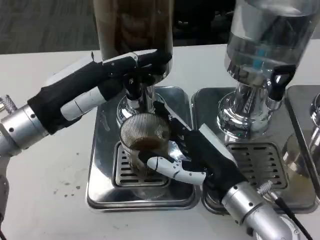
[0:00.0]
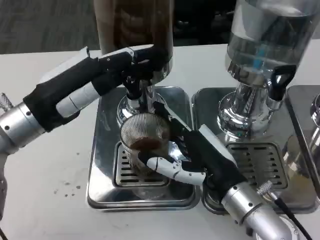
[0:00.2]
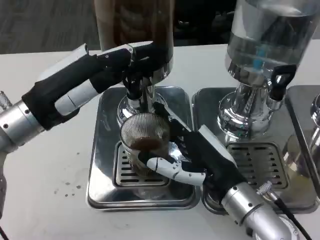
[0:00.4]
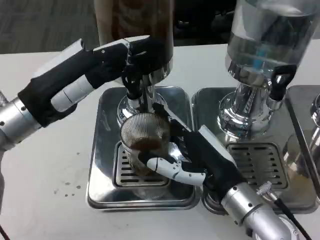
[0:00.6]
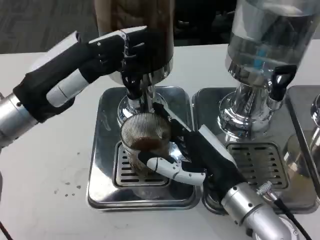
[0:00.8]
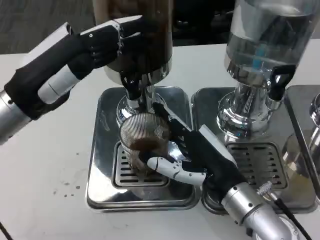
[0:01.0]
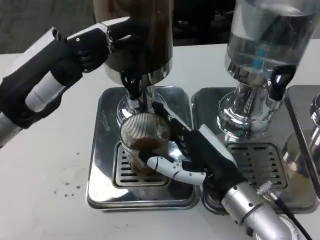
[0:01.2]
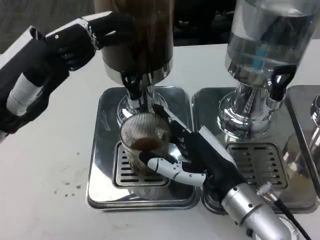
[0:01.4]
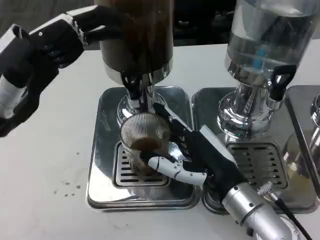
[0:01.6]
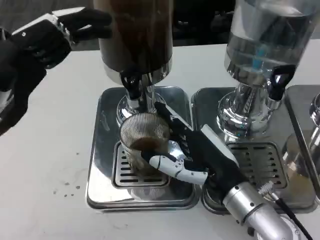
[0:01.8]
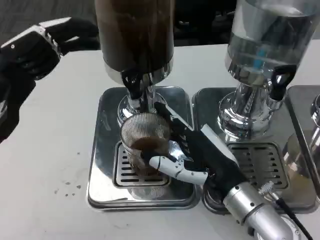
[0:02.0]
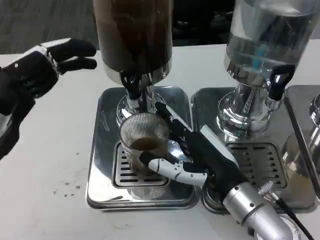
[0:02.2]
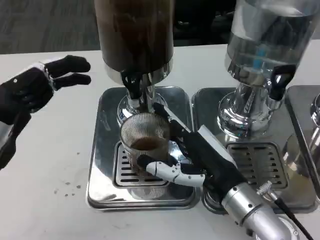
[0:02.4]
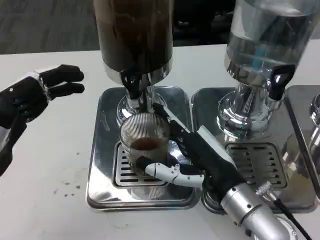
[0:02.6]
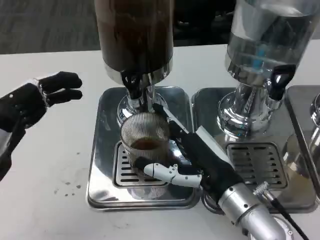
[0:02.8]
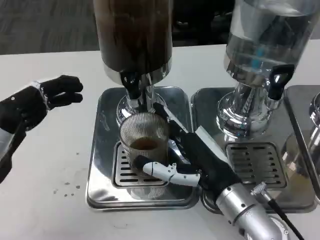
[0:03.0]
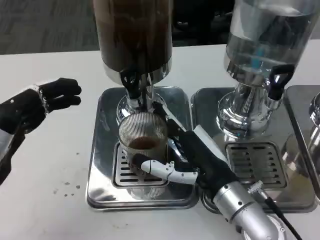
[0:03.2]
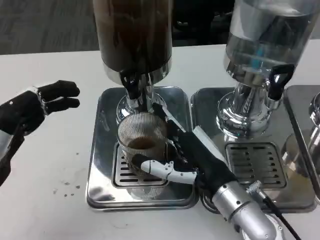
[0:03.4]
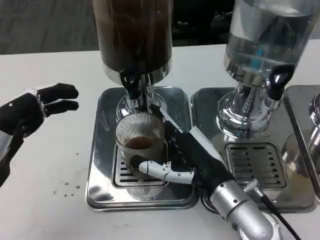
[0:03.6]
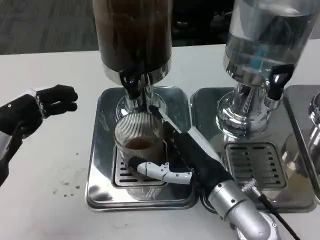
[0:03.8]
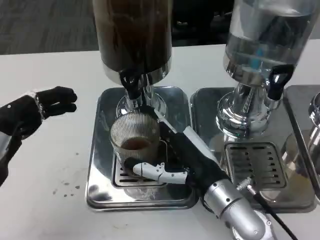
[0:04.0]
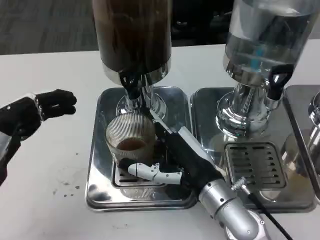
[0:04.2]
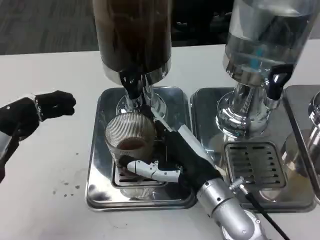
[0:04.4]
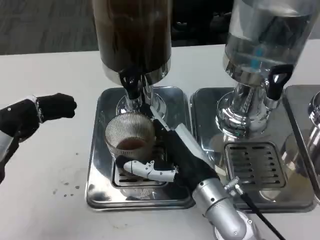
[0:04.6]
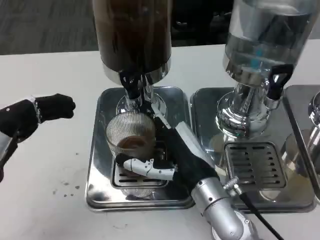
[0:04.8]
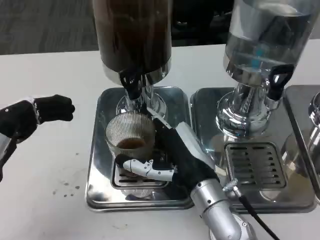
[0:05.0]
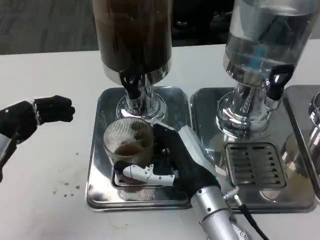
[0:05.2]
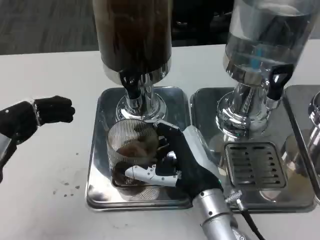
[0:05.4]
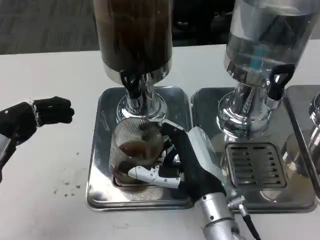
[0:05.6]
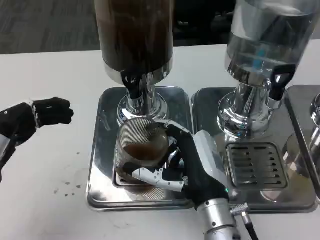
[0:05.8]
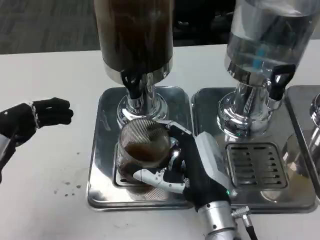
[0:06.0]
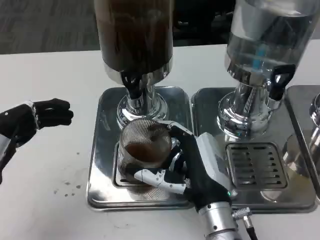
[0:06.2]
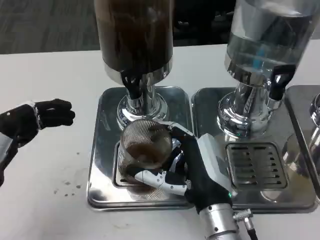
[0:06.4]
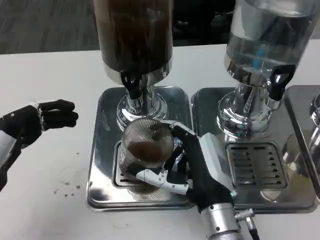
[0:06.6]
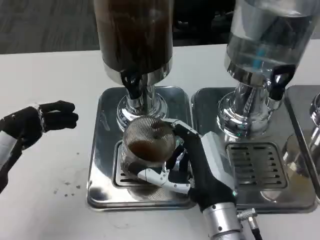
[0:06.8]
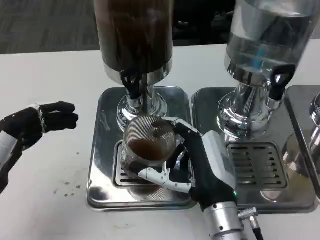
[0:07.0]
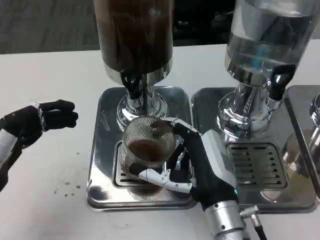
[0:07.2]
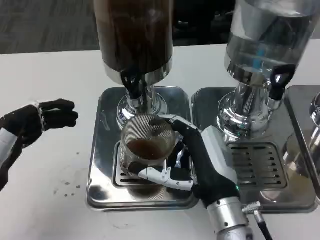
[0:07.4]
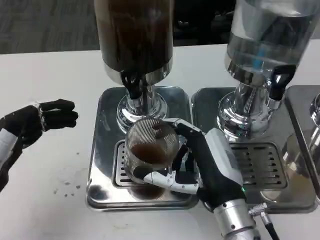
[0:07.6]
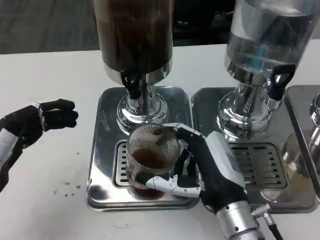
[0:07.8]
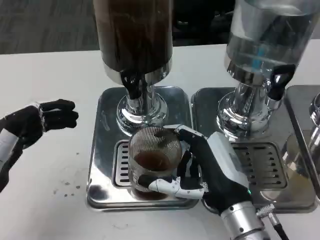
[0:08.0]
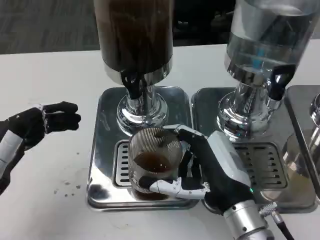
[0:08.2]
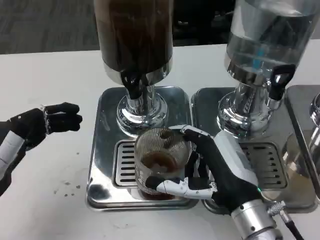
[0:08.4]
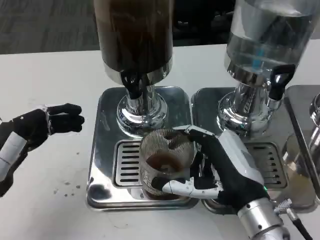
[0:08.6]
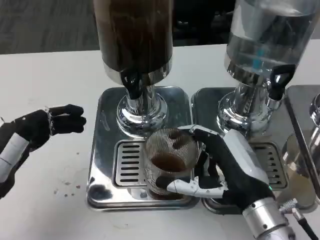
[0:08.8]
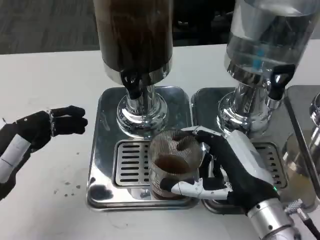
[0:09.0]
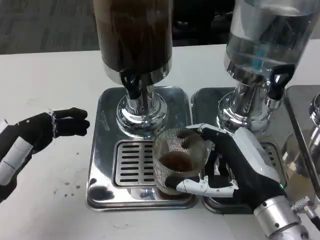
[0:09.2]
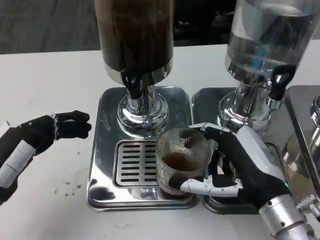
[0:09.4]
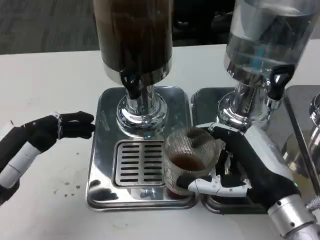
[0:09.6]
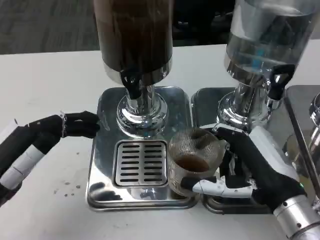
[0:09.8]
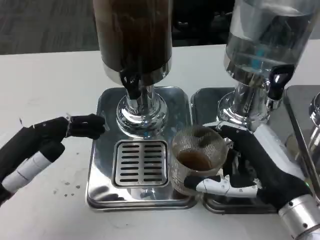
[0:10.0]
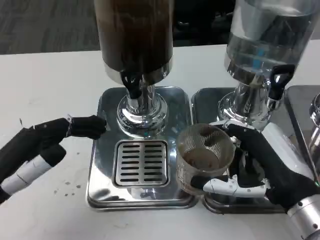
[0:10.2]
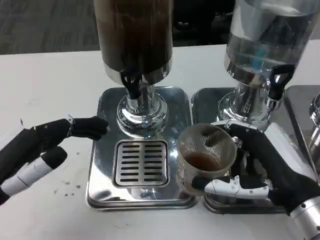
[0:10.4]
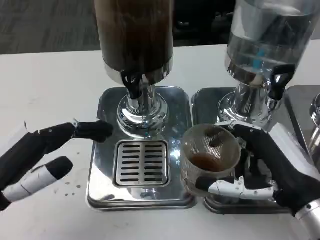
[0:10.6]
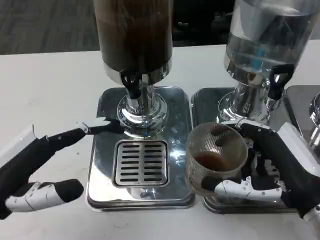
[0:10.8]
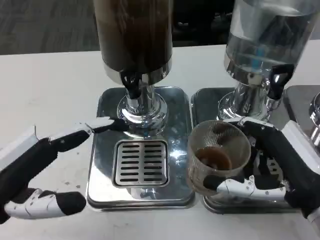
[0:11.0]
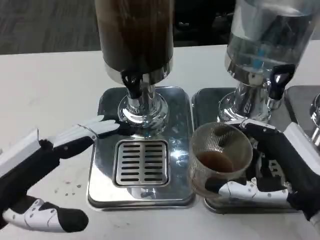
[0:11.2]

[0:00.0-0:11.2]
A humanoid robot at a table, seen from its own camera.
Task of the whole recording: Grasp the cup under the faucet to collect the drink, then remove the cup.
0.0 to 1.6 s: The left hand changes place by roughly 5 cm.
1.6 to 3.2 s: The left hand travels downward and backward by roughly 10 cm.
3.2 to 4.8 s: There are only small adjustments of the hands.
6.4 to 8.0 s: The hands make only small movements.
8.0 to 9.6 s: The right hand heads to the right, covering roughly 5 cm.
9.6 to 11.2 s: The left hand shifts about 5 cm upward, while the right hand changes place by some 5 cm.

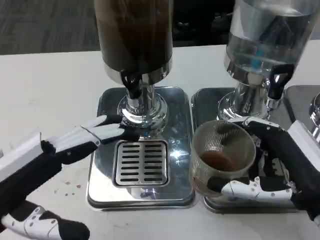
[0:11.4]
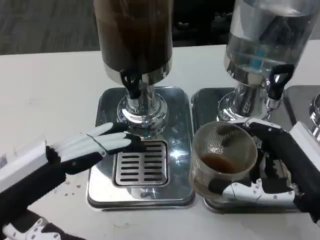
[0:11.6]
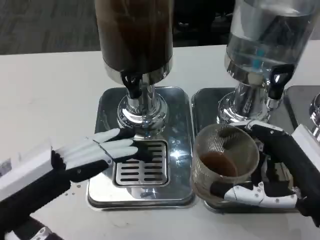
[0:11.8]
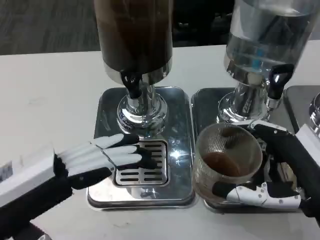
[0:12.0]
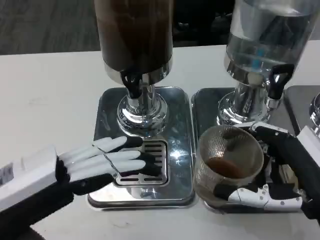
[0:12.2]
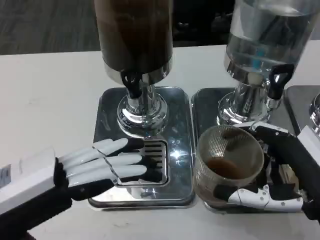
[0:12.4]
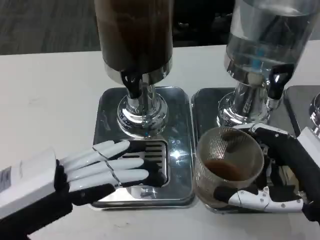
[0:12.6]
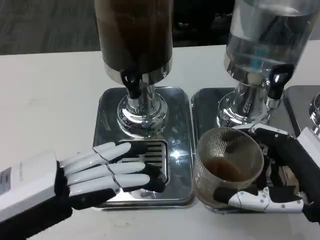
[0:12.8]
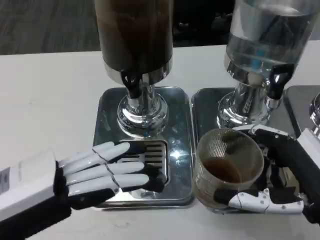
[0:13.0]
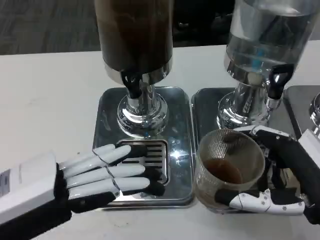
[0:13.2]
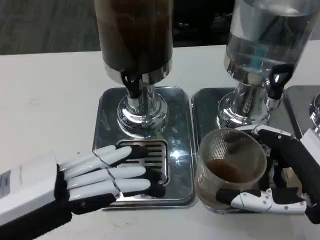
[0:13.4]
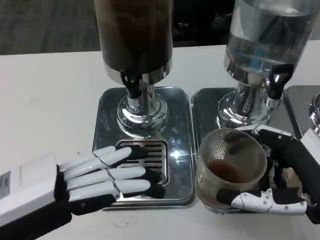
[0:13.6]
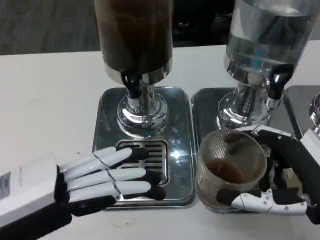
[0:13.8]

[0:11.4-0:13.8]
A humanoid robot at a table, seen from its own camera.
Task of the whole recording: Grasp the cup under the faucet to collect the drink, then remove the cup.
12.6 to 13.8 s: Neither hand changes place.

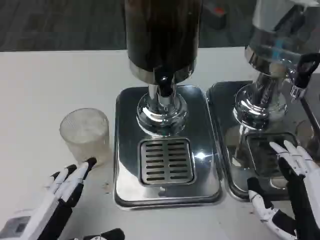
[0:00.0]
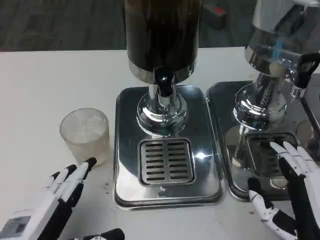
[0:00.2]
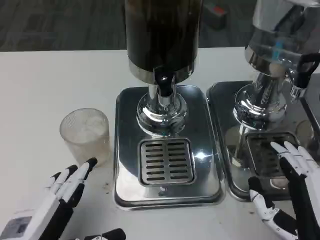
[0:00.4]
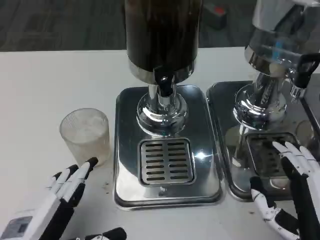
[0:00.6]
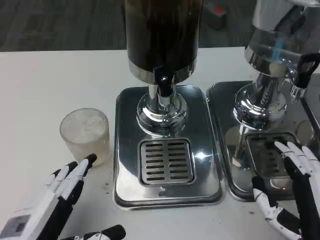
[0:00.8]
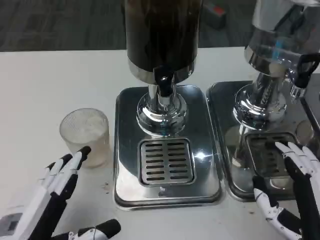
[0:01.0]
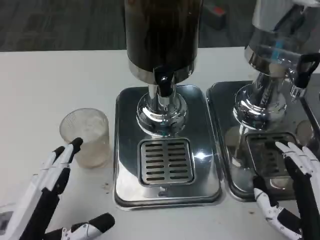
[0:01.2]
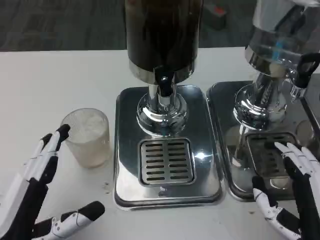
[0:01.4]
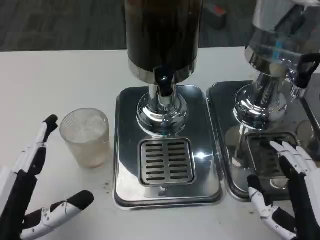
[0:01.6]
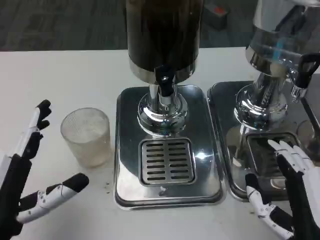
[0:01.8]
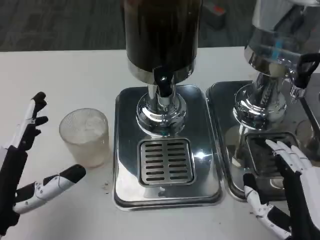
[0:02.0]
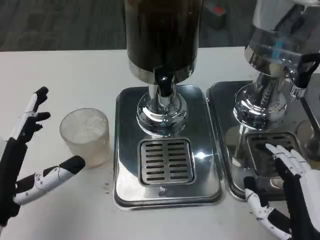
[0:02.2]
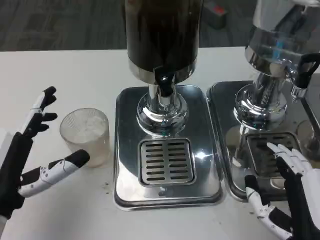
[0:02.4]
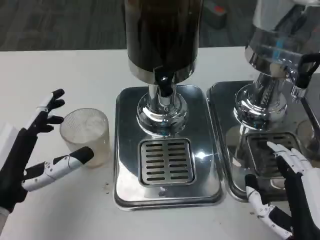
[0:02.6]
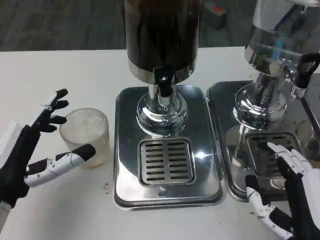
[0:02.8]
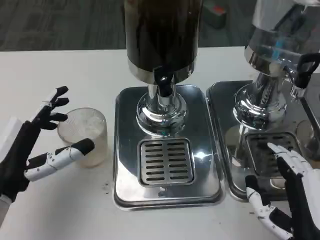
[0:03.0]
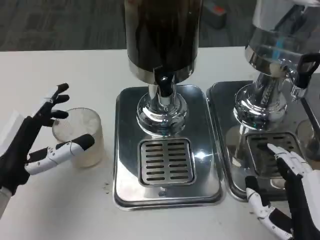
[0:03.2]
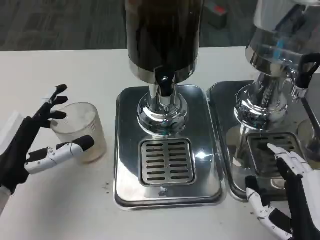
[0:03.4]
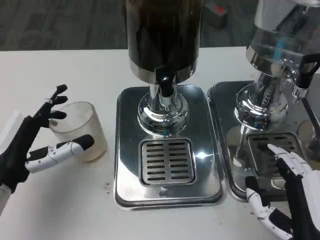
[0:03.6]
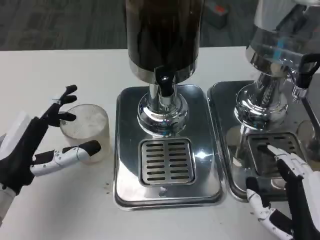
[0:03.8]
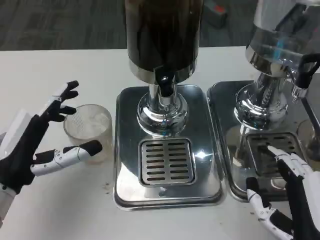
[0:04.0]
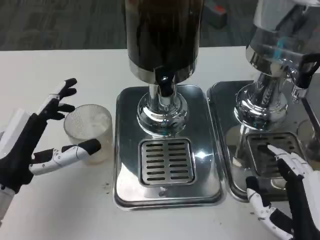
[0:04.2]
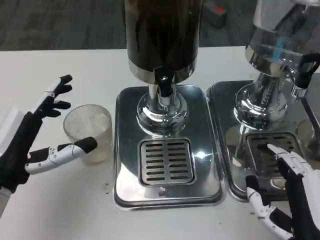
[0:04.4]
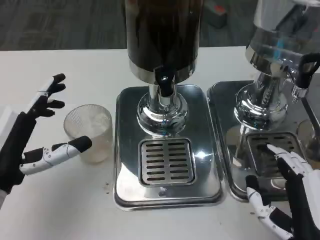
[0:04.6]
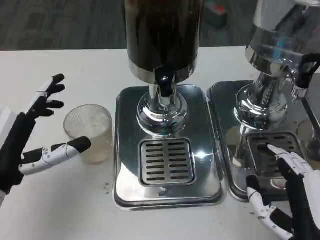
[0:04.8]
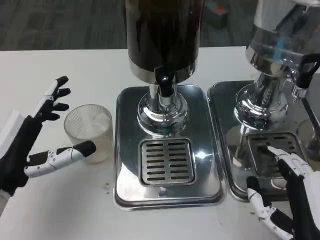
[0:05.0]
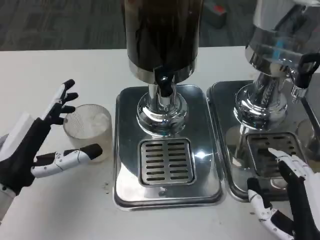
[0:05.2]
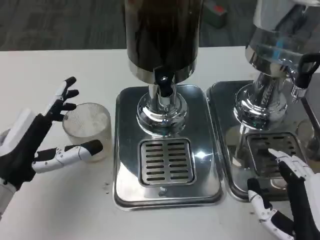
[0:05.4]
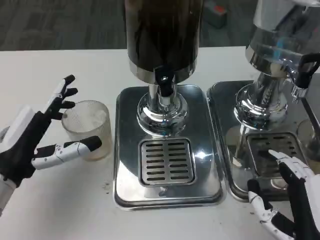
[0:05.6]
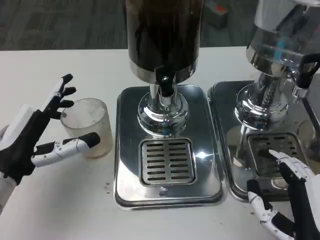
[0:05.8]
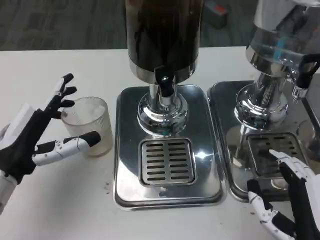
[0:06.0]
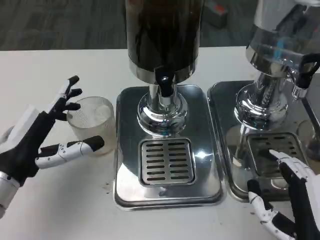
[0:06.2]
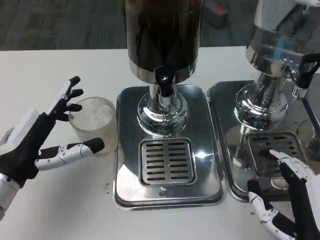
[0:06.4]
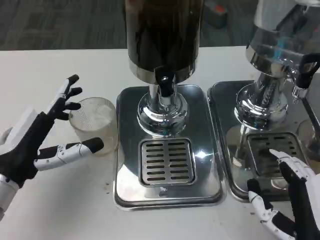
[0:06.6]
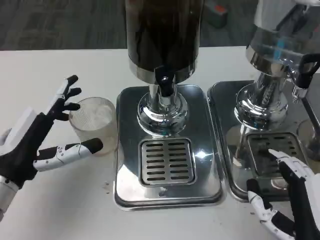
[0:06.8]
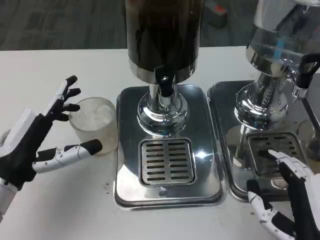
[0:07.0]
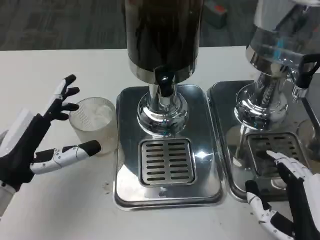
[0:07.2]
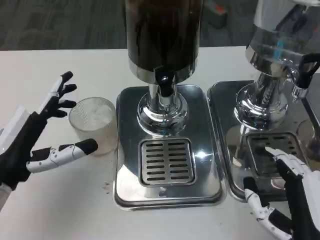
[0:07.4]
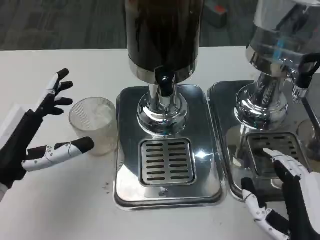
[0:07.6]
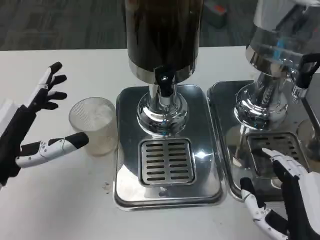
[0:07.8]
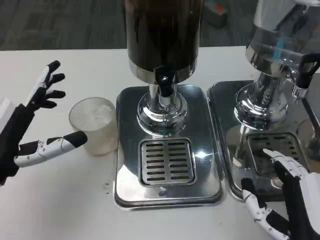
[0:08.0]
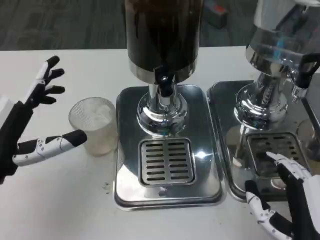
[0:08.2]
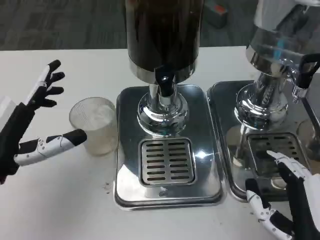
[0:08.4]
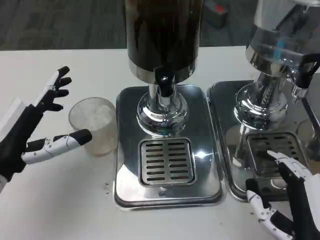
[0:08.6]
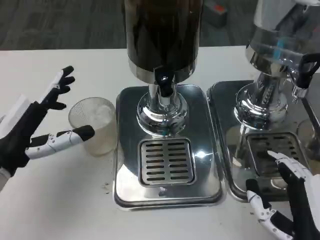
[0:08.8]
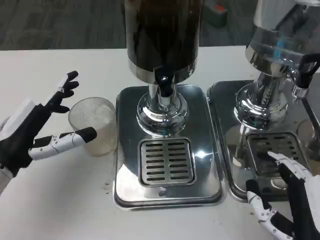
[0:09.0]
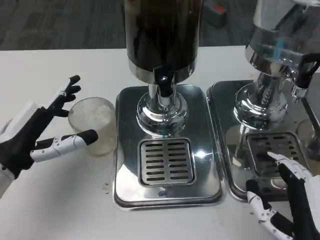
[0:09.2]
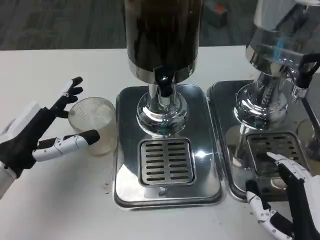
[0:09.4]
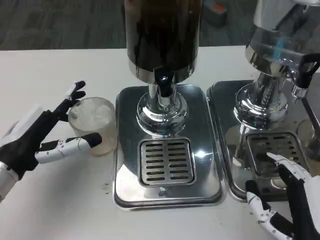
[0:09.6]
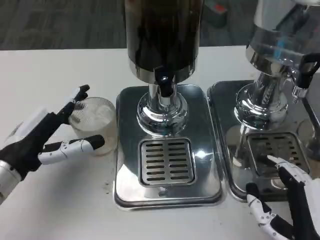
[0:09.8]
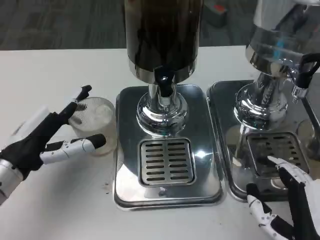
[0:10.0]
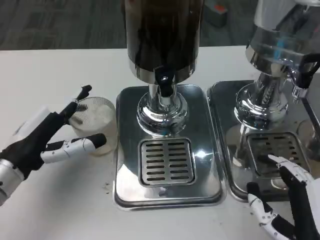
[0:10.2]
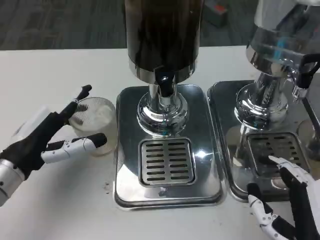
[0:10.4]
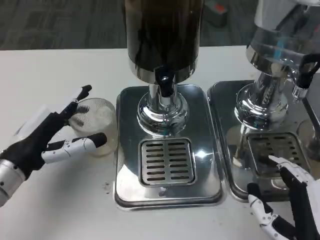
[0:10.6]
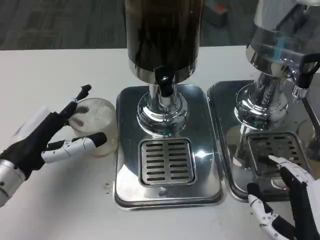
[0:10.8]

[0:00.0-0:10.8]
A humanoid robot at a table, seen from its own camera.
Task of the whole recording: Grasp the cup under the faucet to collect the drink, then remove the cup.
1.6 to 3.0 s: The left hand heads forward, covering some 10 cm.
3.0 to 10.8 s: The hands make only small movements.
